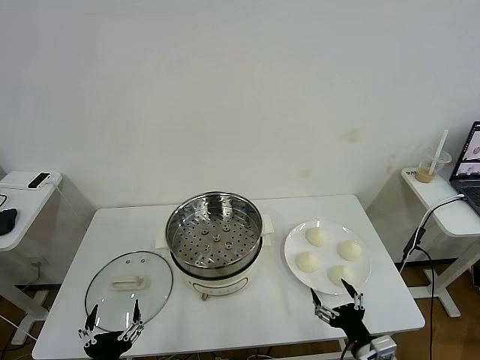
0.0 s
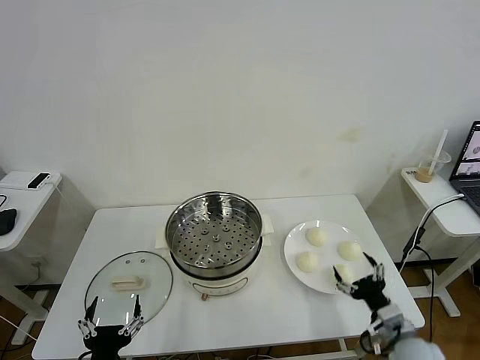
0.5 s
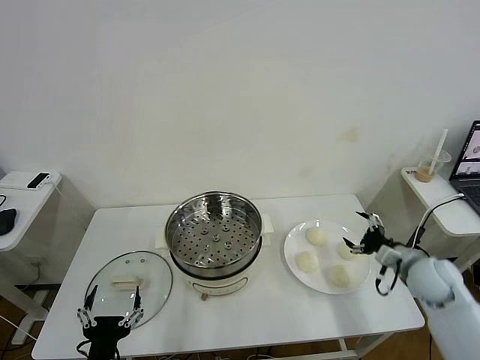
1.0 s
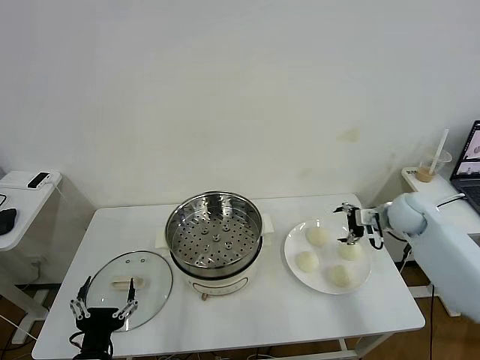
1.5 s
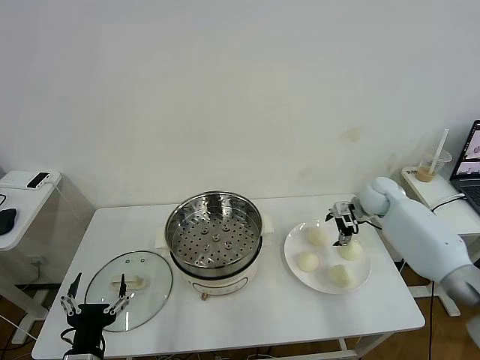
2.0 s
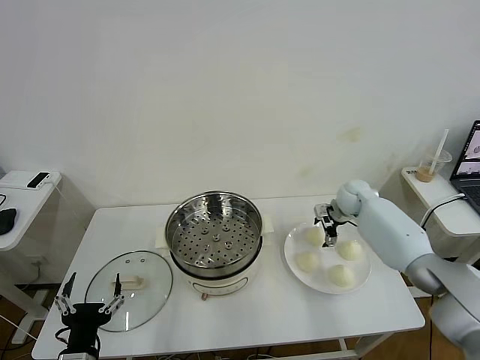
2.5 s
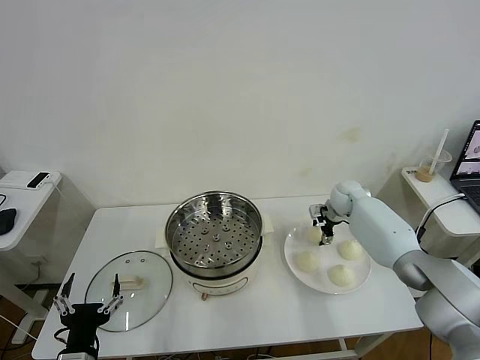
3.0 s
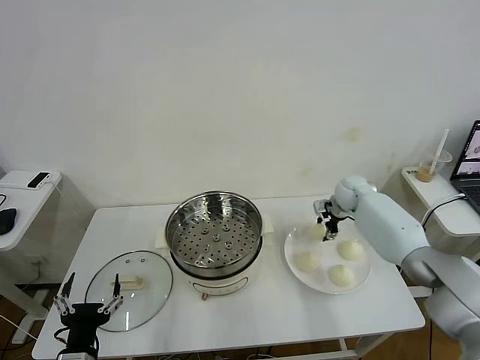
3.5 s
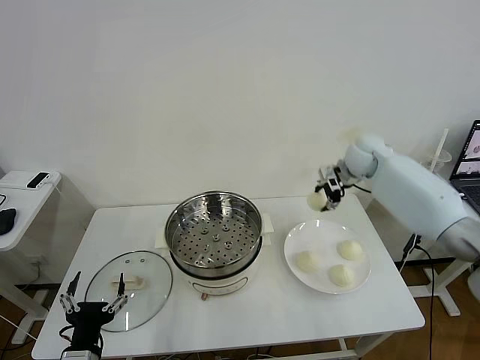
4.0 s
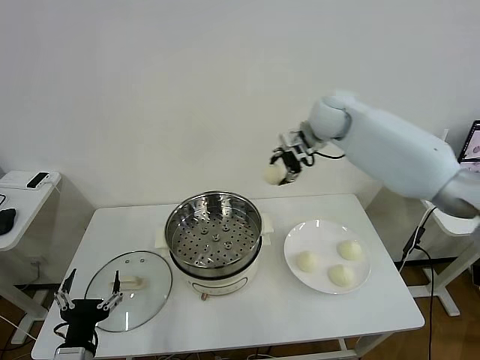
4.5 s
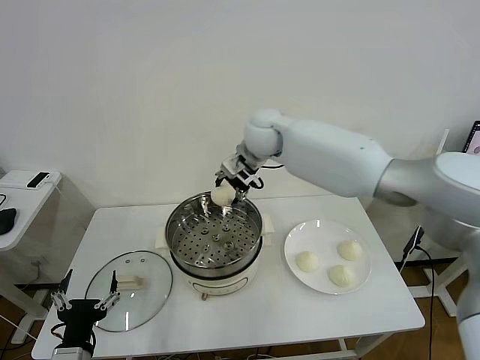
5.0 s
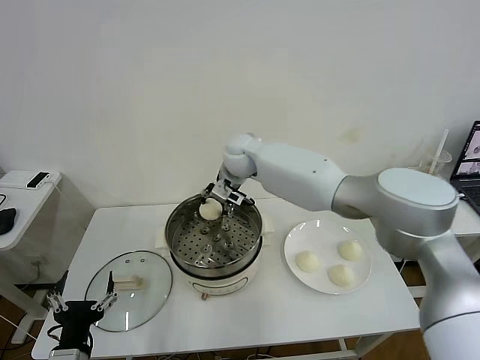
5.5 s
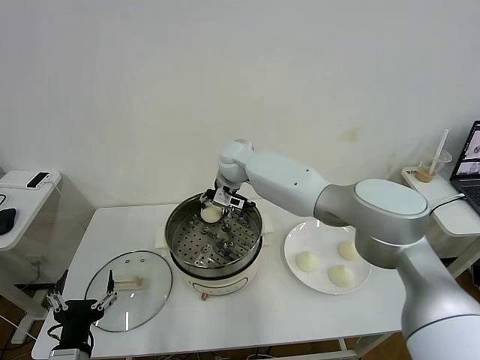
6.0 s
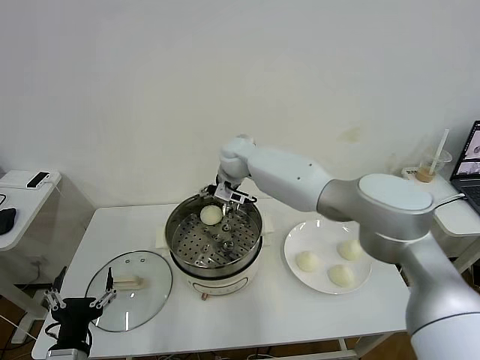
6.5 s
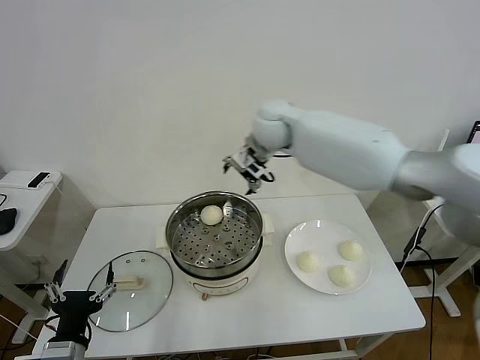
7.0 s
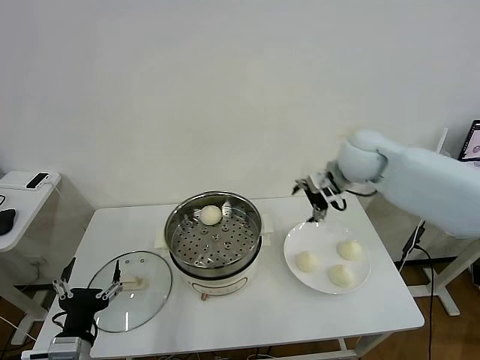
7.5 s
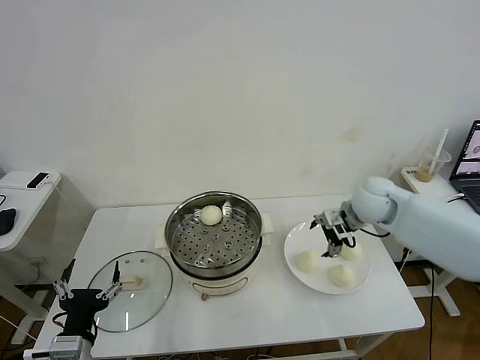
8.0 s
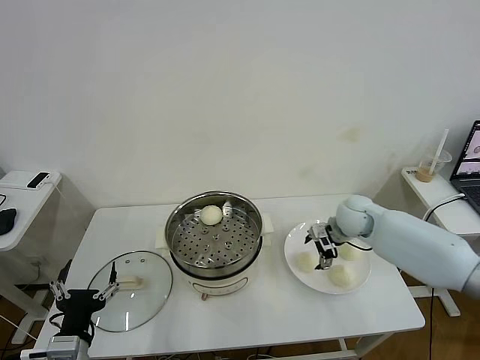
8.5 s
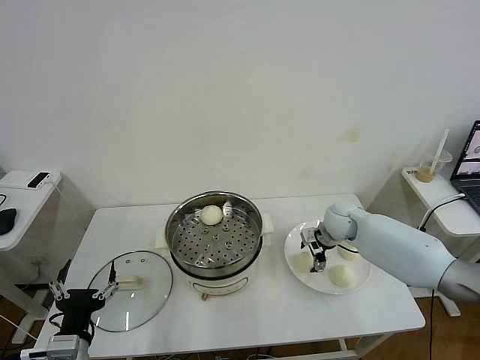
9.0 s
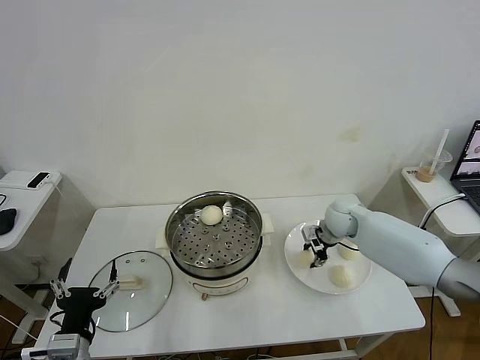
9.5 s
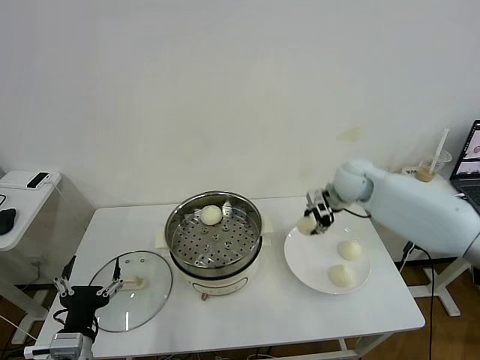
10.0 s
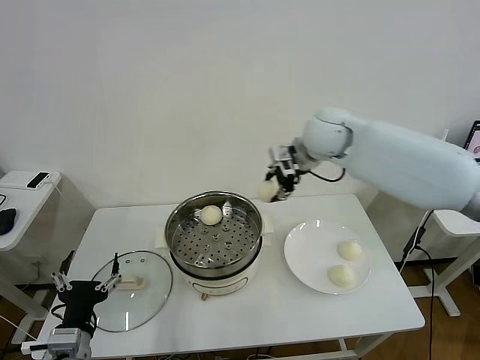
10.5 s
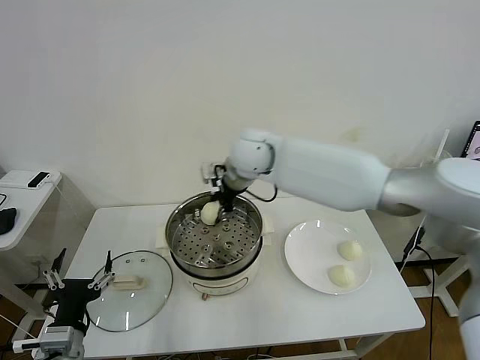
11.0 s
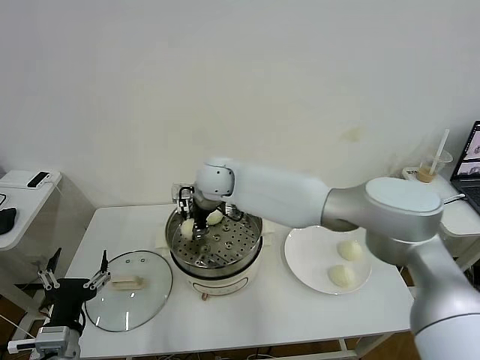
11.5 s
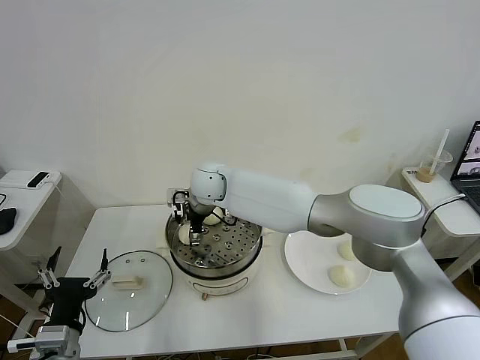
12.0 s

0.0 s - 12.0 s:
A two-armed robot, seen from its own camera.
Task of the whole recording: take steamed baozi put them in steamer then cover it.
Step, 0.0 s - 3.0 s: Grasp the baozi in the plate with right gripper.
Step, 3.5 s - 6.0 s: Place the baozi on the steamer with right gripper.
Step, 7.0 s - 9.0 s: Grasp the baozi in the plate with right gripper.
2.0 s - 4.0 s: The right gripper goes roughly 15 cm upward and to the left, and closes its fingers.
4.0 s - 6.0 s: The right gripper moves to the left, approximately 30 cm.
6.0 s - 8.0 s: The right gripper is displaced to the right by about 30 cm, and opens its fingers.
8.0 s - 10.0 s: The right gripper heads upward and forward, covering approximately 10 cm, and closes.
10.0 s - 12.0 s: The right gripper shifts some 30 cm to the left, and opens.

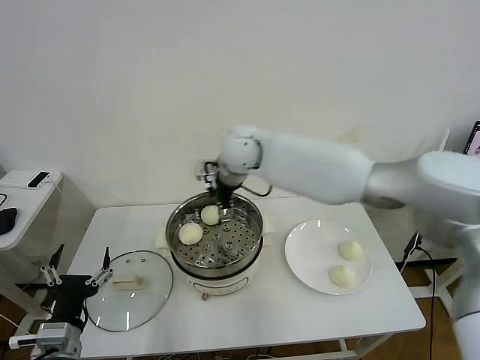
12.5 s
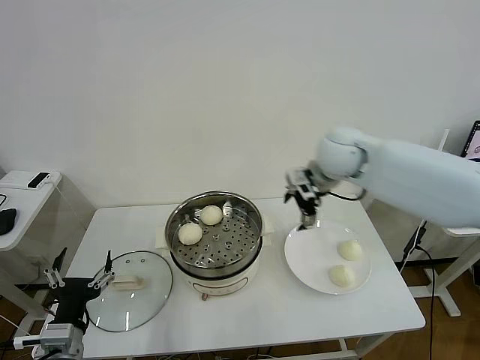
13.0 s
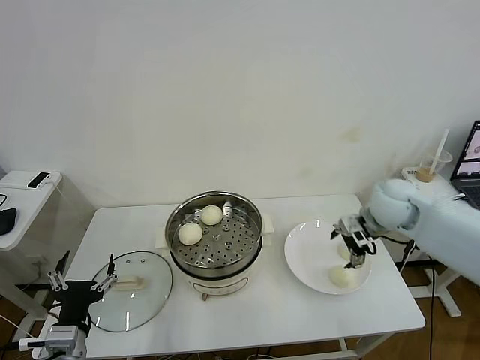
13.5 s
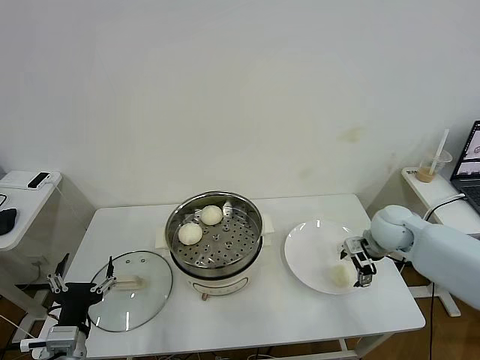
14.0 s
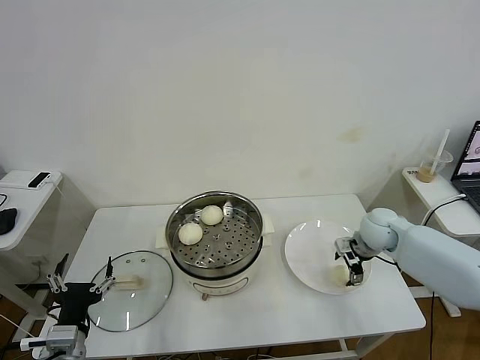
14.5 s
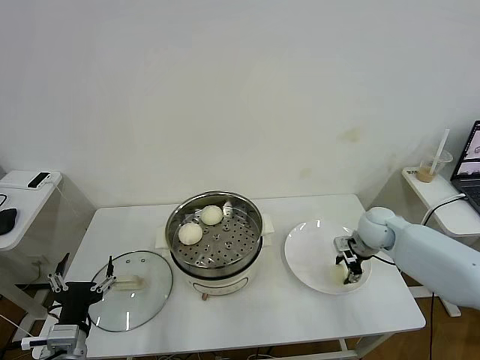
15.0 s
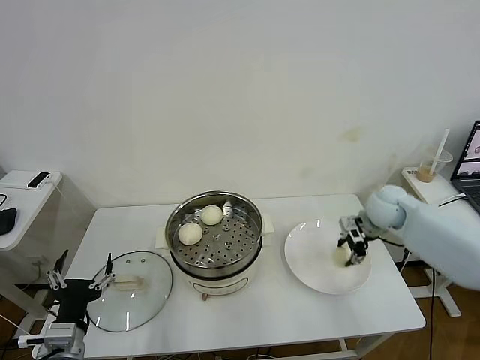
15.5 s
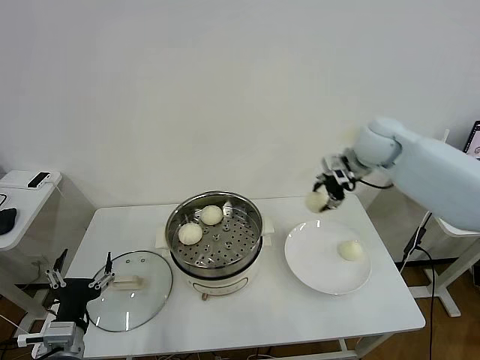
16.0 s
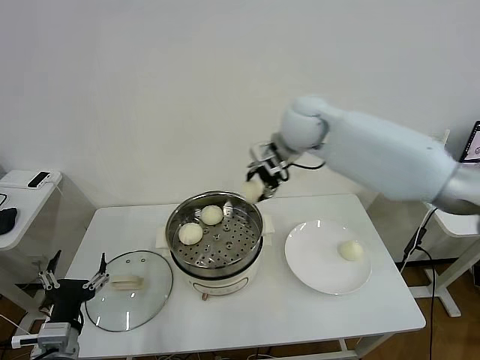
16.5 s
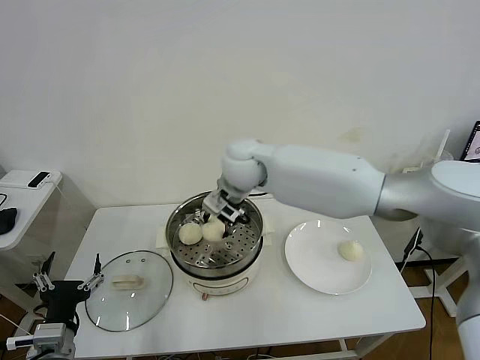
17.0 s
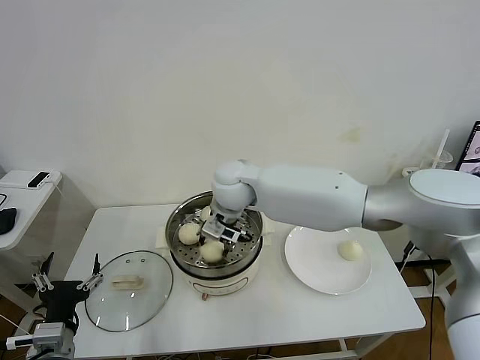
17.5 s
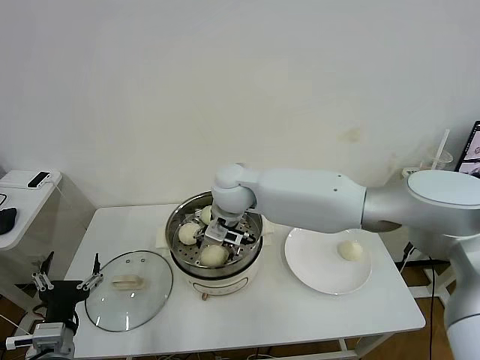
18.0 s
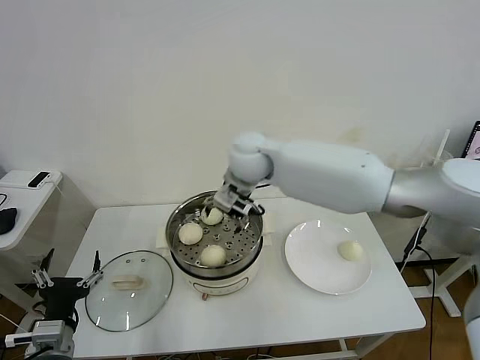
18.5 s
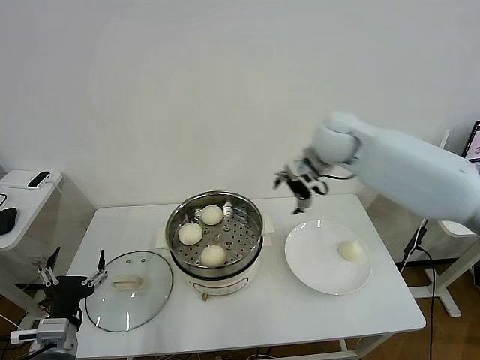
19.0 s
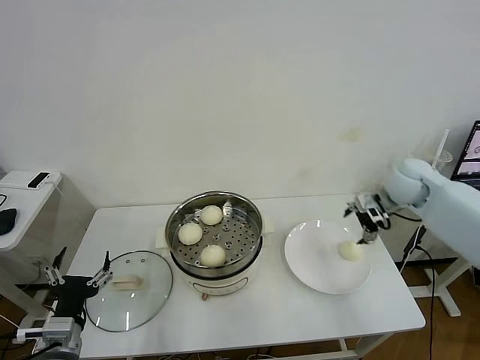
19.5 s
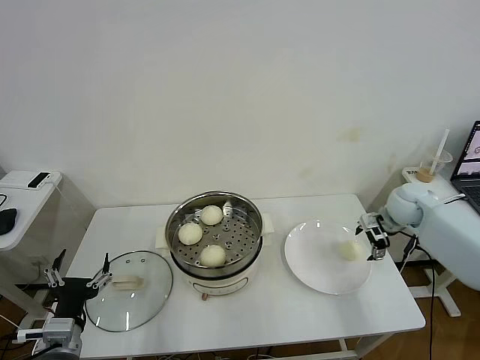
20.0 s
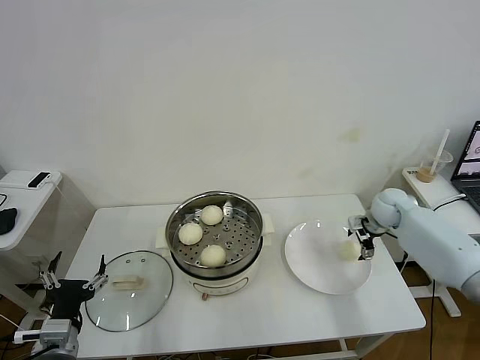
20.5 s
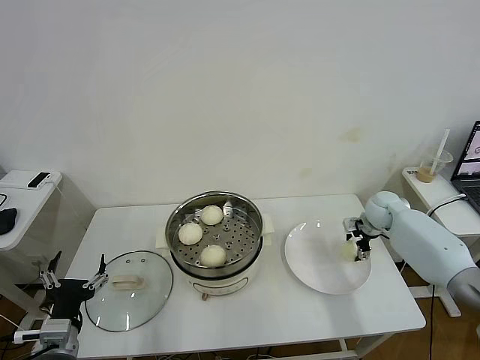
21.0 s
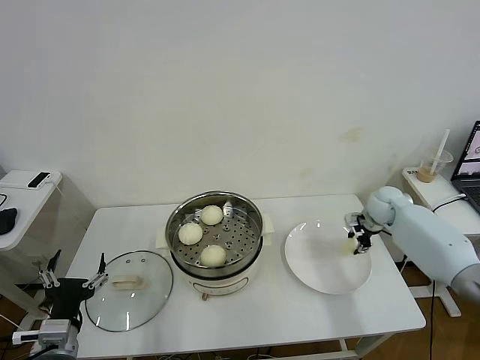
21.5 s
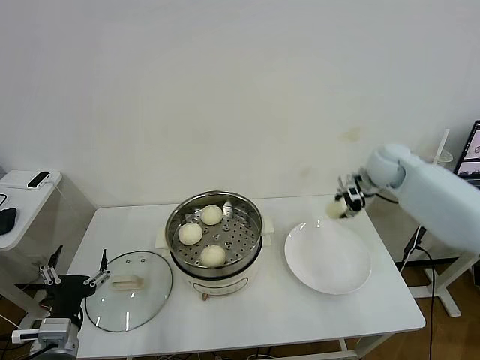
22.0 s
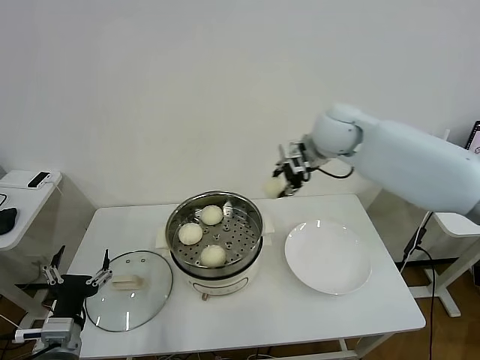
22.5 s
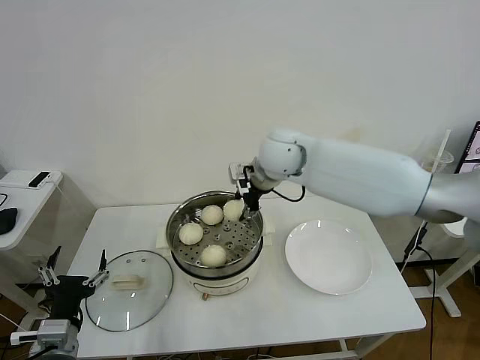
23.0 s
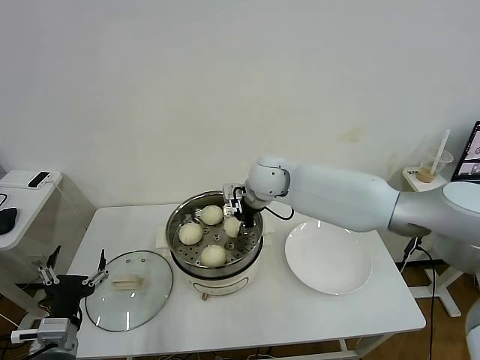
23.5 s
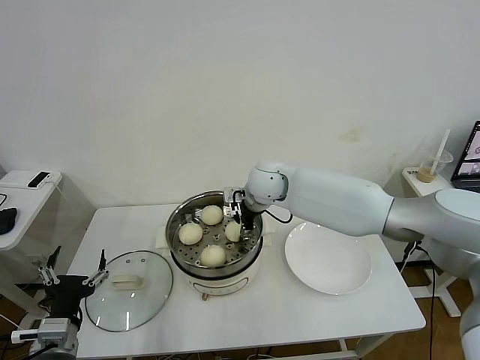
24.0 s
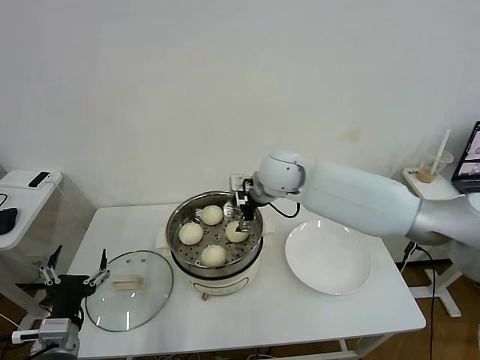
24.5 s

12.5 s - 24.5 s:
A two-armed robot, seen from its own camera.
Task of the whole recording: take steamed baozi put them in steamer then cover it.
Step, 12.5 s - 15.0 s: Grasp the baozi in the plate with right gripper.
Step, 15.5 s - 18.0 s: Place the baozi on the steamer with right gripper.
Step, 18.5 s - 21.0 s: Grasp the baozi in the plate with right gripper.
Step, 21.5 s - 24.0 s: Place the baozi on the steamer with right gripper.
12.5 s - 14.5 s: The right gripper shifts approximately 35 cm to the right and downward.
14.5 s - 16.5 s: The right gripper heads upward and to the left, covering roughly 35 cm, and closes.
16.5 s - 18.5 s: The right gripper heads to the left, covering approximately 5 cm, and opens up.
18.5 s - 20.5 s: The right gripper goes approximately 40 cm to the right and downward.
20.5 s - 22.5 s: The right gripper moves upward and to the left, some 30 cm, and closes up.
22.5 s - 24.5 s: The right gripper moves to the left and downward, some 10 cm, and opens up.

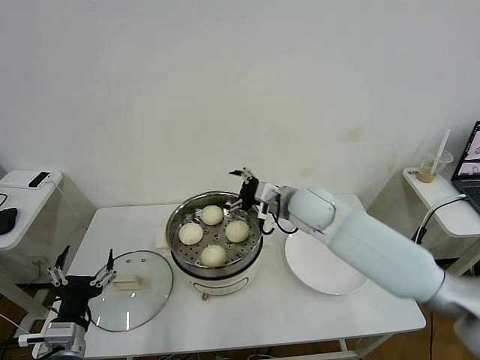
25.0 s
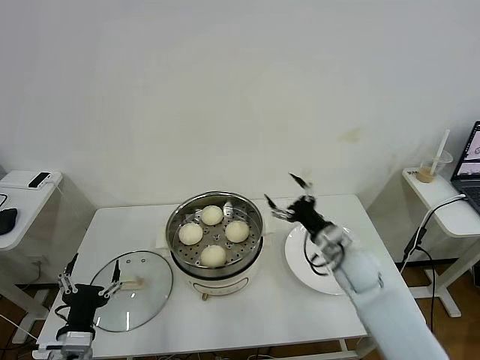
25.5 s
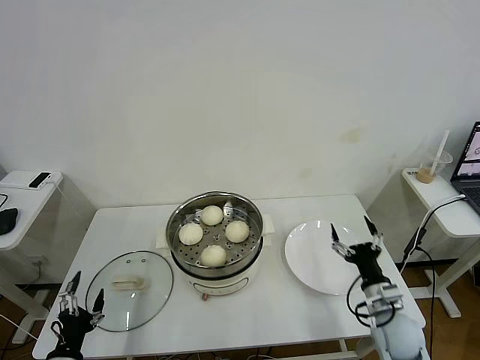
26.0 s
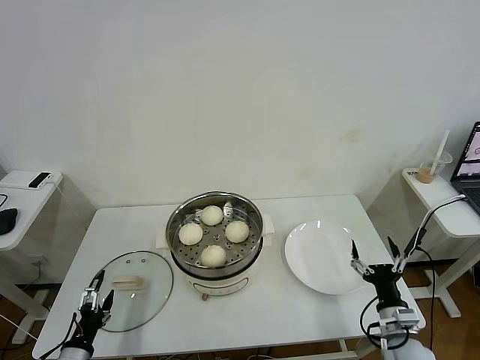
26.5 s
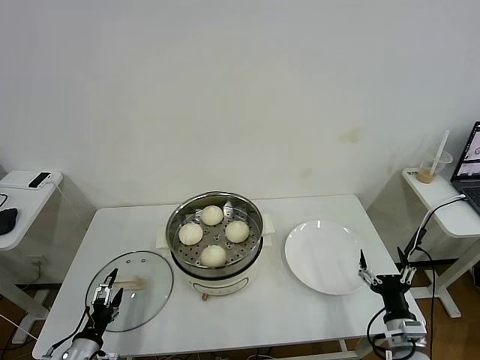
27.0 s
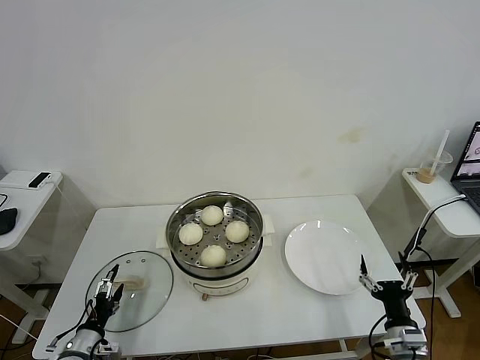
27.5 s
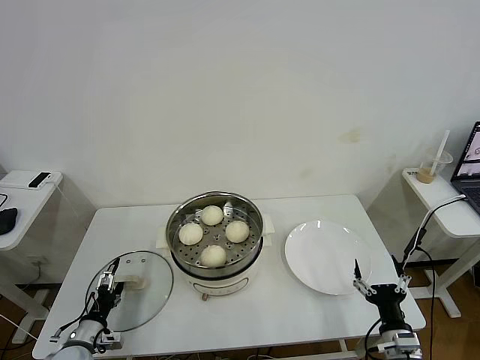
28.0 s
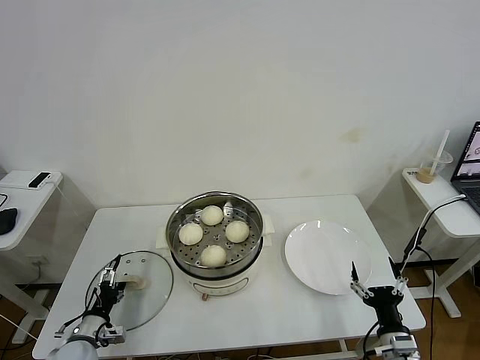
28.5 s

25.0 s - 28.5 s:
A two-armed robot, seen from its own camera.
Task of the whole recording: take steamed baozi put them in steamer then cover it.
25.0 s - 27.0 s: The left gripper shifts approximately 15 cm downward and to the left. The right gripper shifts about 40 cm backward, downward and to the right.
27.0 s - 28.5 s: The left gripper moves forward, roughly 5 cm.
